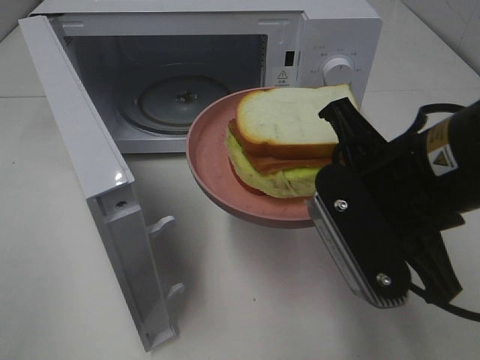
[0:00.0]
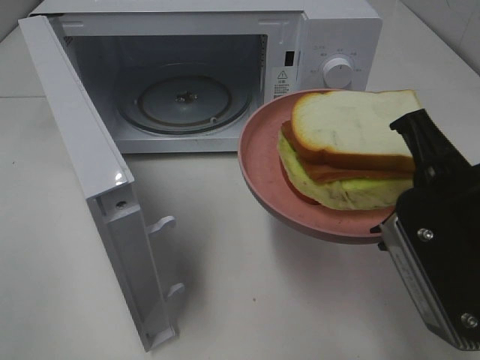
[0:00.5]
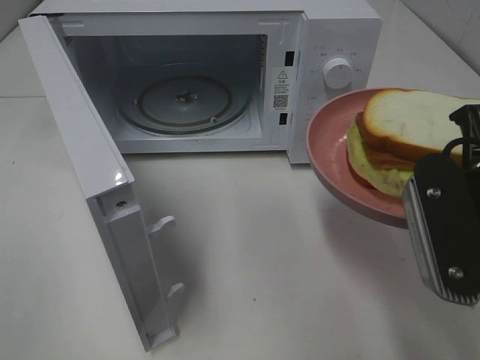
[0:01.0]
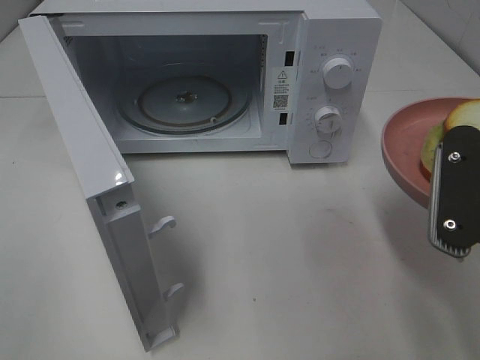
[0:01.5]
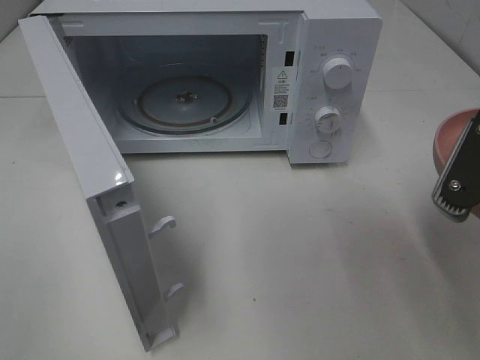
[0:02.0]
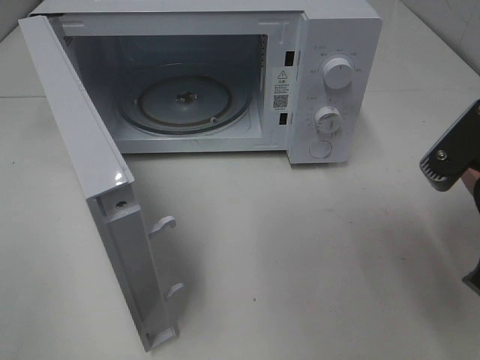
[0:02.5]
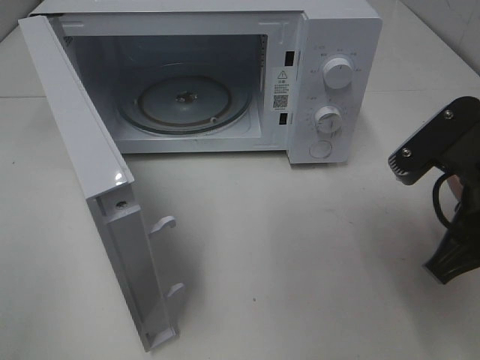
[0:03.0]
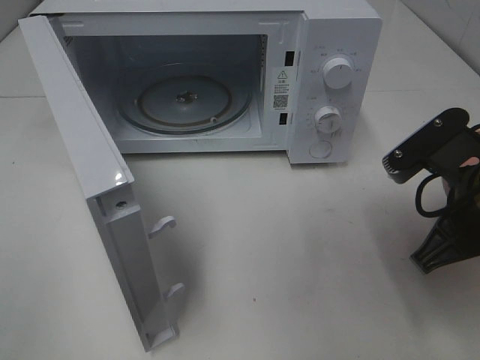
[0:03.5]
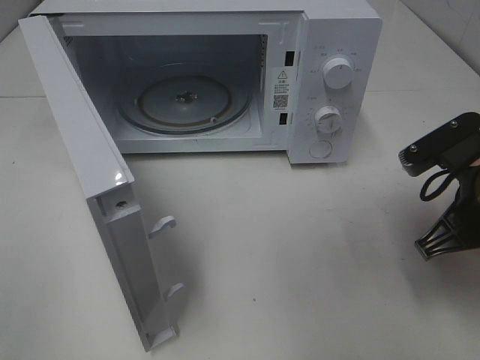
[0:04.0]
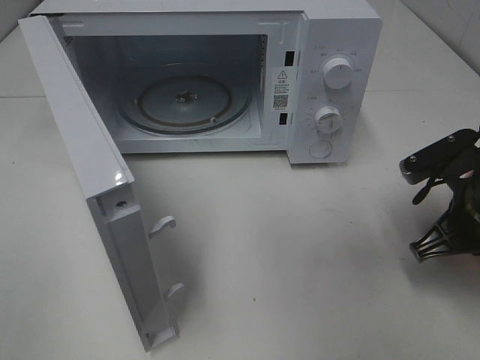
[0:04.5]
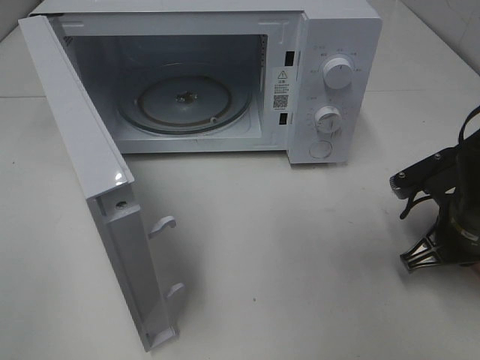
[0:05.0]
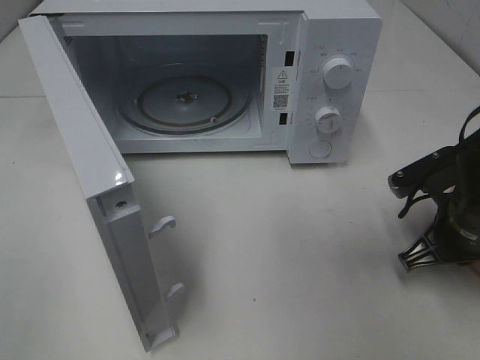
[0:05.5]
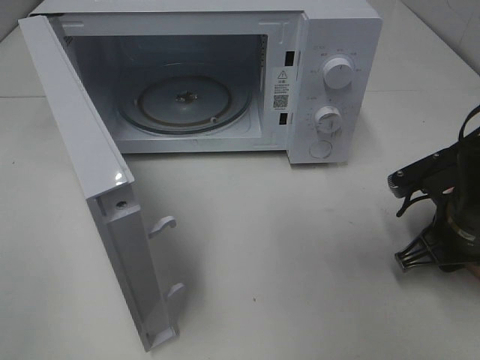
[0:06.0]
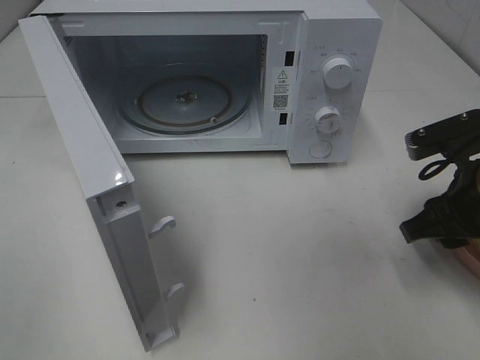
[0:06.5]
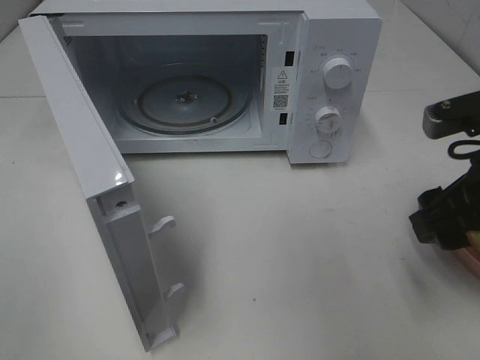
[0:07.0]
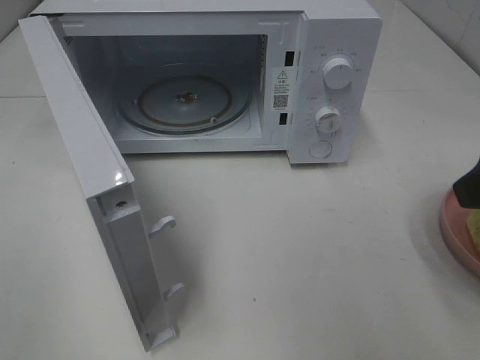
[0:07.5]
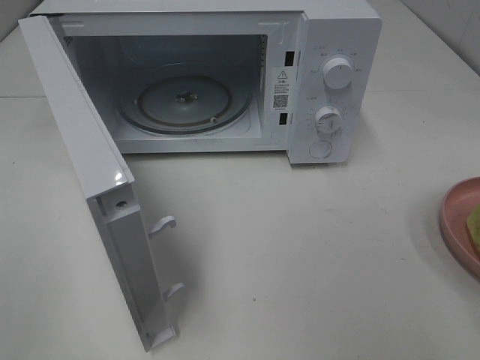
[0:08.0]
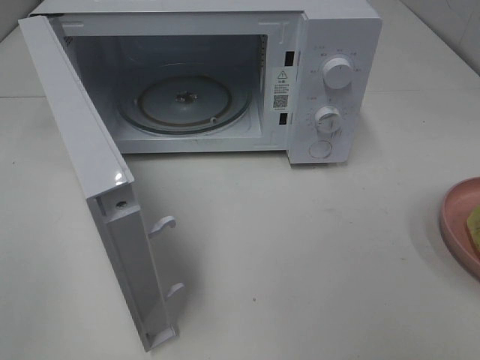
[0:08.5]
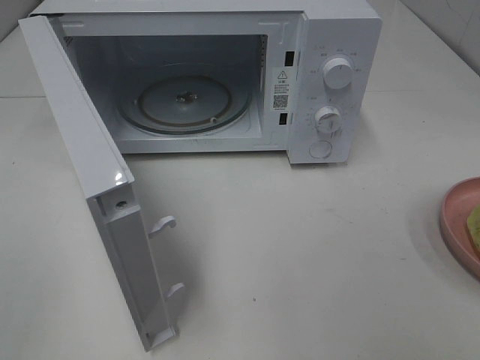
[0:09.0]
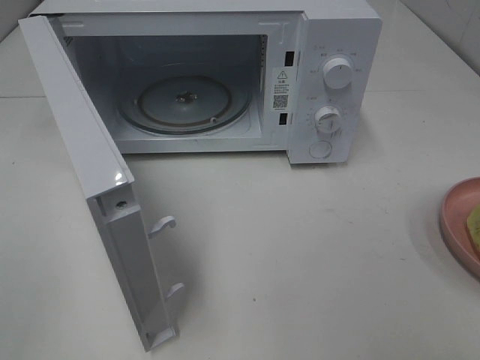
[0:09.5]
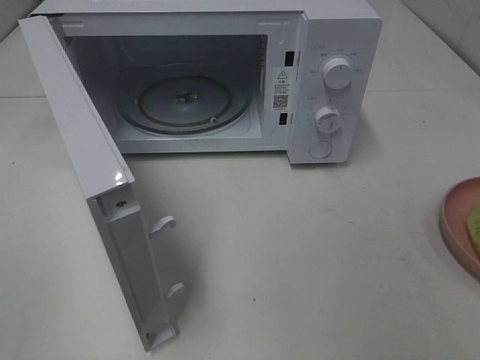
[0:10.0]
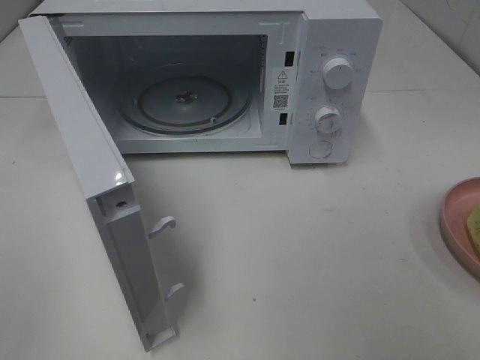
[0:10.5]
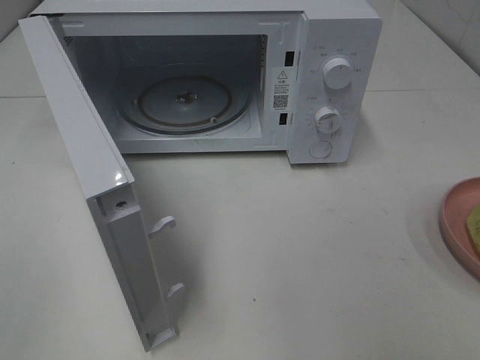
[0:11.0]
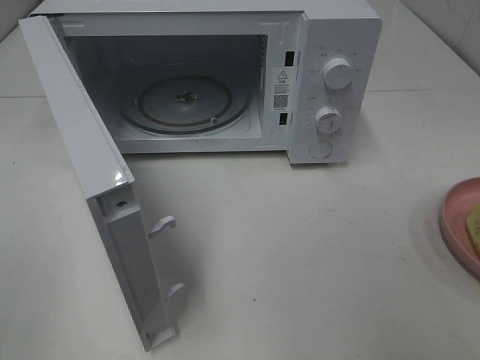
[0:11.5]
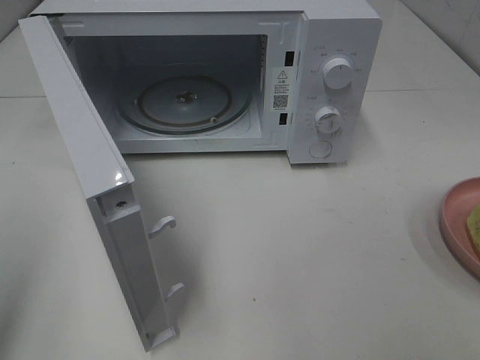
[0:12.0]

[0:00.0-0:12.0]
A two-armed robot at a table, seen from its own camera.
Task of the whole recording: Heat Sandwich.
Step, 0:00.0 to 0:06.5: Right hand: place the plate on the table.
0:00.0 to 0:02.0: The right gripper heads to the right, covering about 10 cm.
0:02.0 to 0:04.0: The right gripper is displaced downward and forward by roughly 10 cm.
0:04.0 to 0:06.0: The right gripper shifts about 5 cm downward, and opens its fingers.
0:06.0 to 0:08.0: The right gripper travels upward and backward by roughly 25 cm, and opens its fingers.

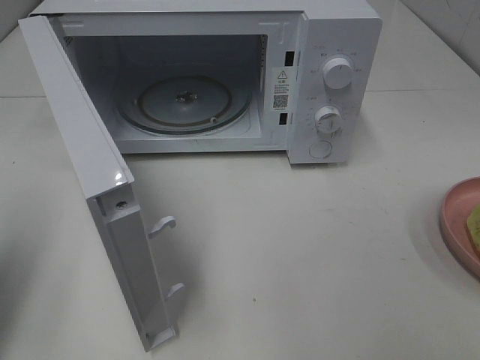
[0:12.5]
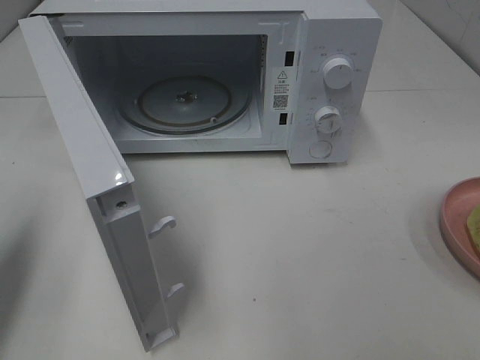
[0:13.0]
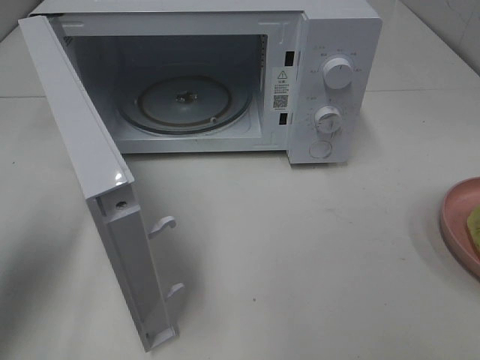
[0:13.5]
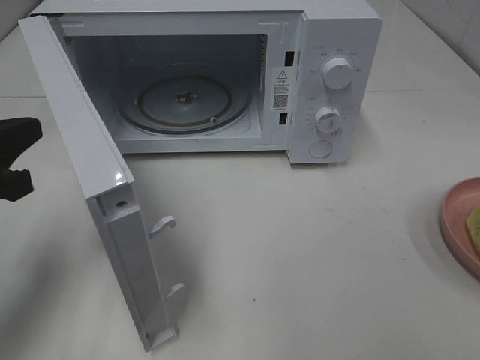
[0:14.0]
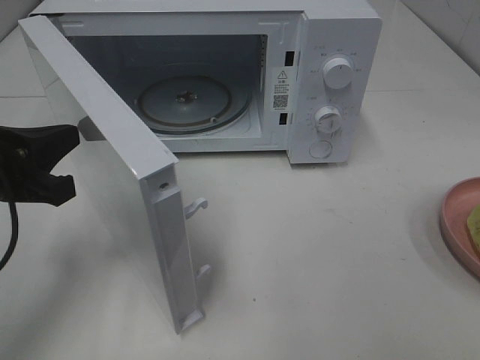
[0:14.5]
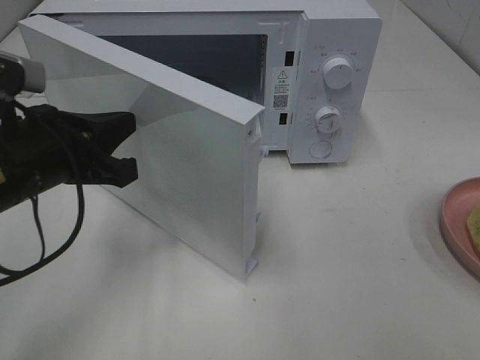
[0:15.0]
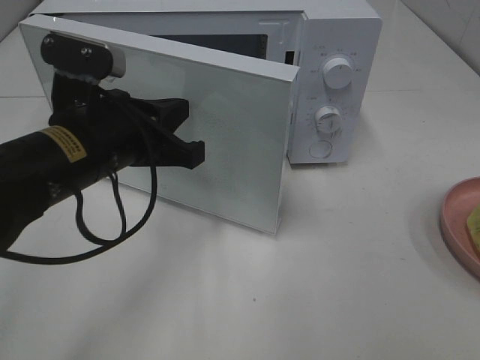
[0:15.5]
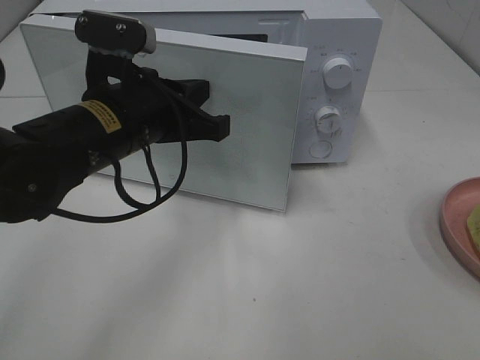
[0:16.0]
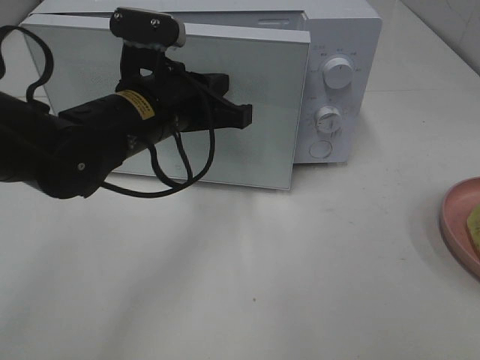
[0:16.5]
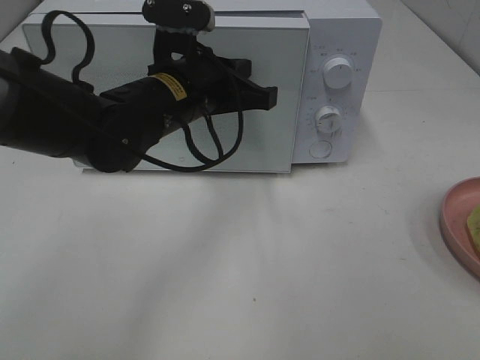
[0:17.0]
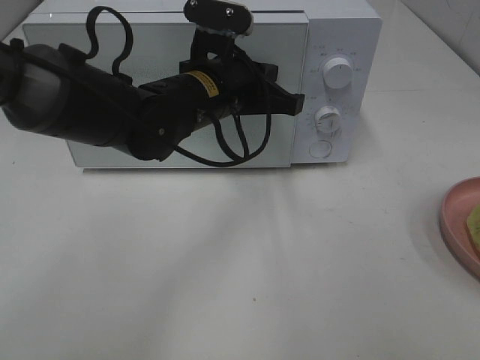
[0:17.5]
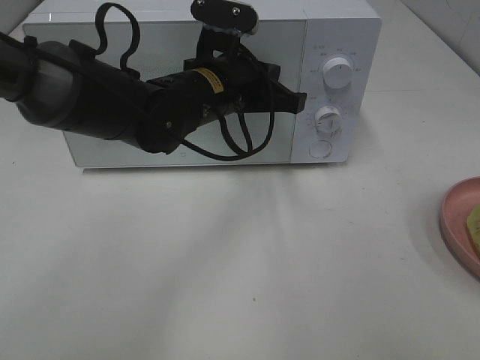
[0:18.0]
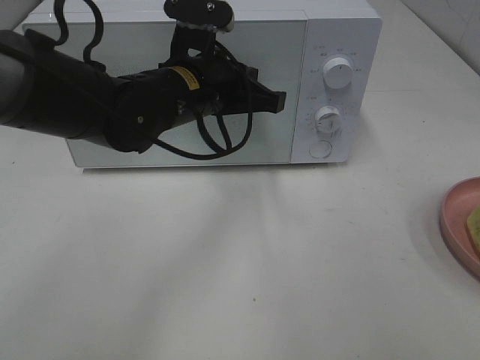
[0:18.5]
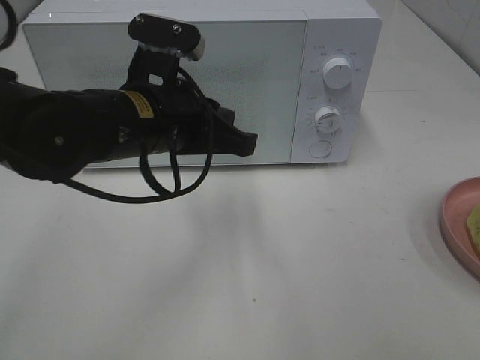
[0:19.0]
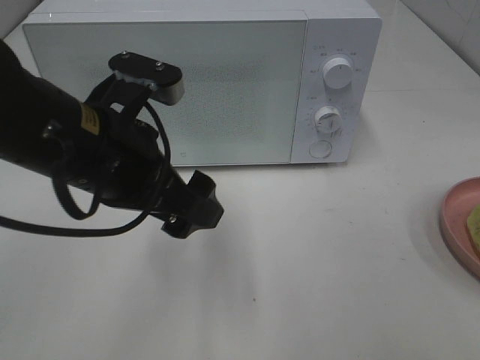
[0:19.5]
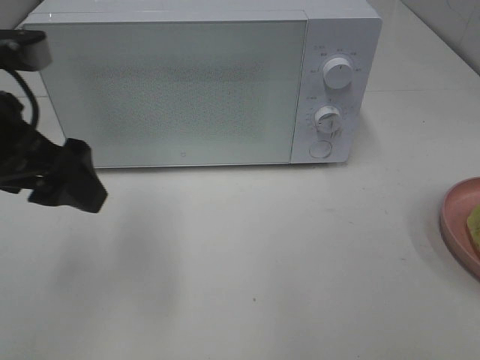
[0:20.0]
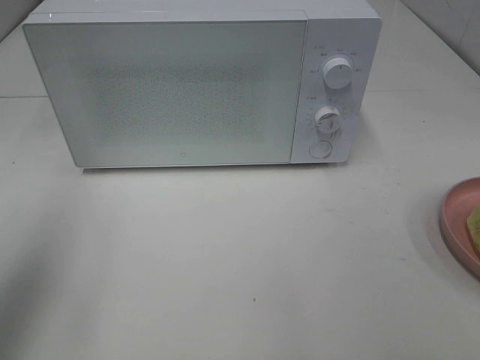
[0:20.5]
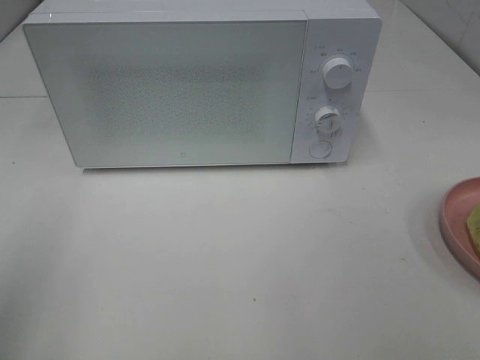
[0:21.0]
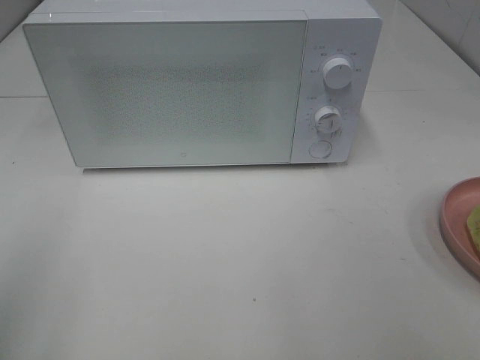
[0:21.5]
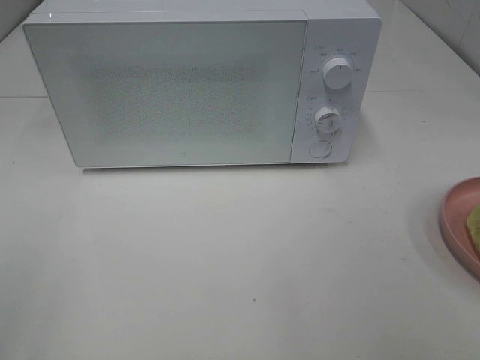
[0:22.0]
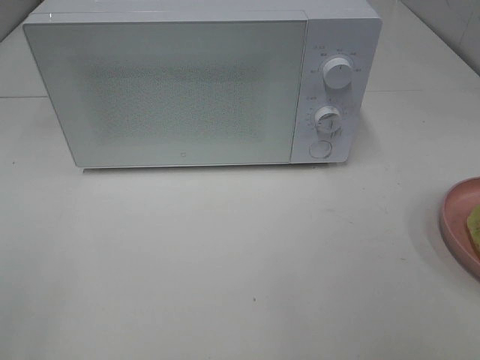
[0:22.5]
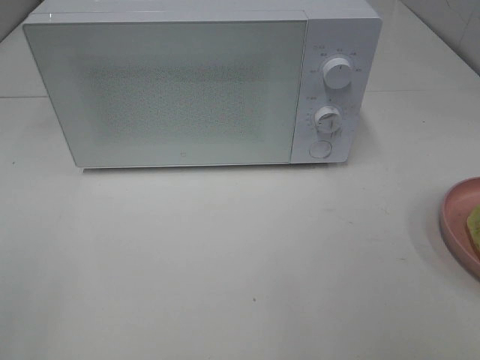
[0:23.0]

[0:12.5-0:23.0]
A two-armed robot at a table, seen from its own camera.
Task of the whole recording: Heat Sandwich.
Step, 0:12.5 to 0:18.0: Left hand: close the microwave door.
0:12.5 to 0:14.5: The left gripper goes about 15 cm to the right, downward and forward.
0:14.5 to 0:16.5: The left gripper shifts roughly 20 cm to the right and forward.
0:19.0 to 0:21.0: The left gripper goes roughly 30 cm to the left and backward, and opens.

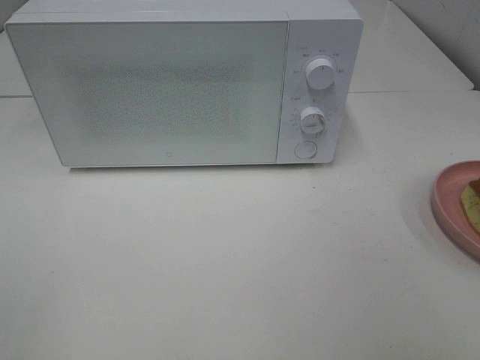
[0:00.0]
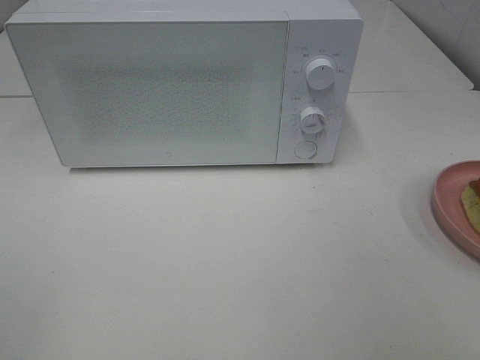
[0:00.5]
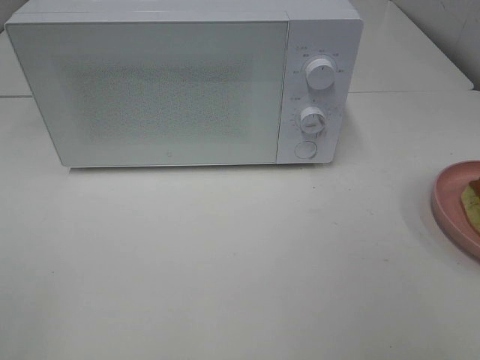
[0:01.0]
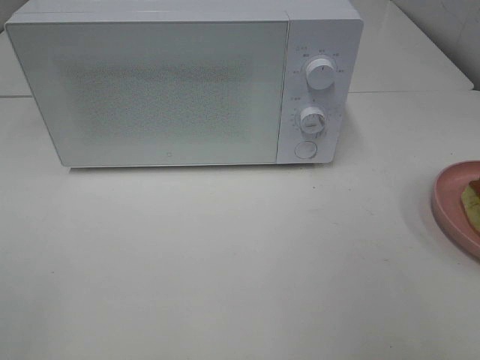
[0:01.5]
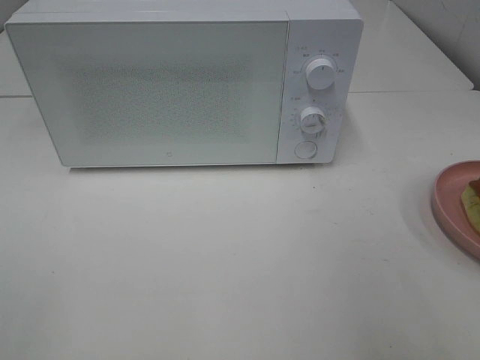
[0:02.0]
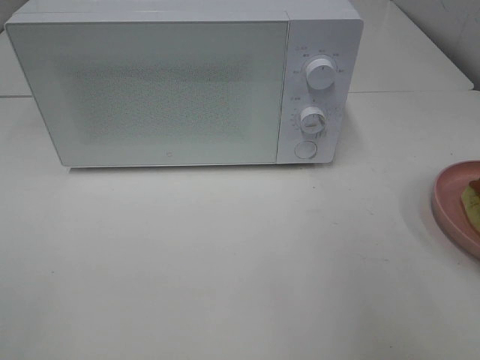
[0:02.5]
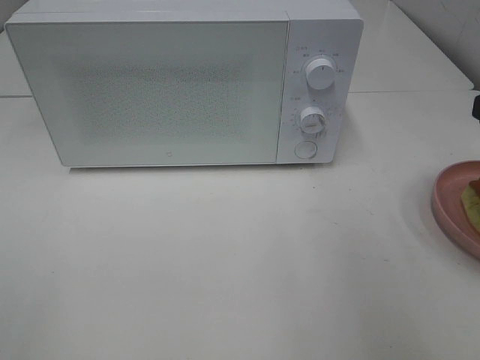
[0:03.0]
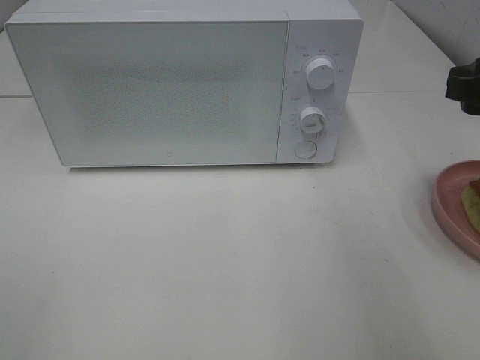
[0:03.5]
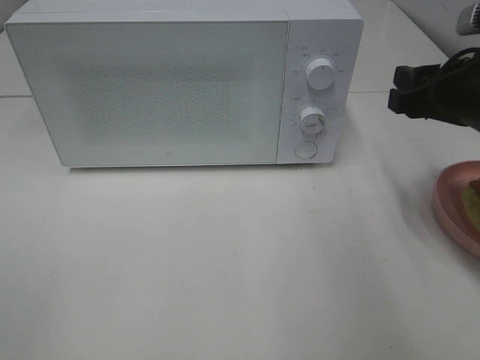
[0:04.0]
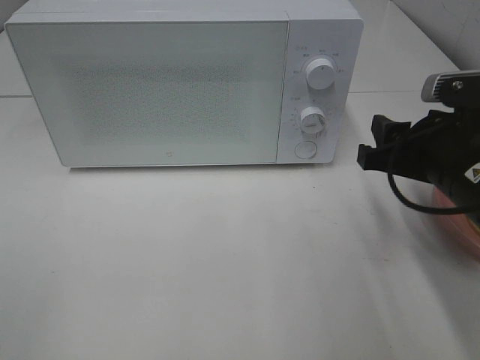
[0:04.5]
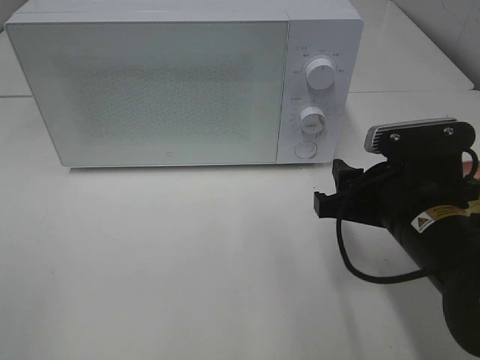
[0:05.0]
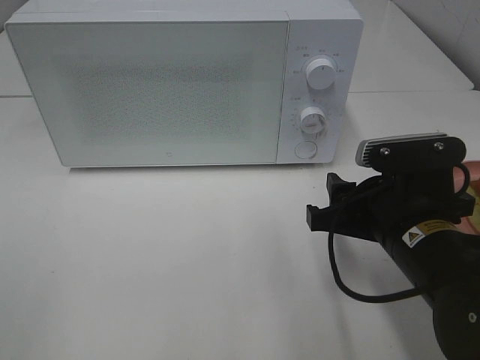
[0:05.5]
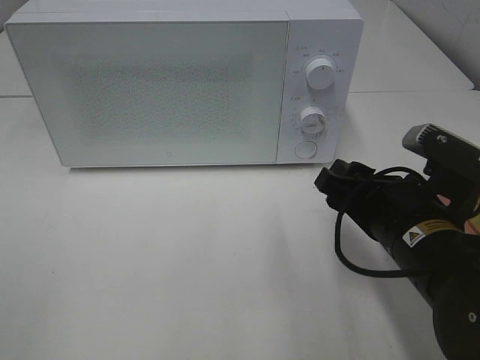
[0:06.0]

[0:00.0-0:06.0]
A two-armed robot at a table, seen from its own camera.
Task of the whole recording: Heat Sandwich.
0:02.0 to 0:04.0: The right gripper is displaced forward and downward by about 20 cm.
0:04.0 to 0:06.0: The right gripper moves to the left, downward and backward, roughly 15 cm.
